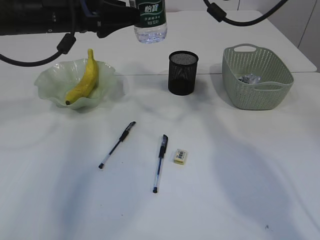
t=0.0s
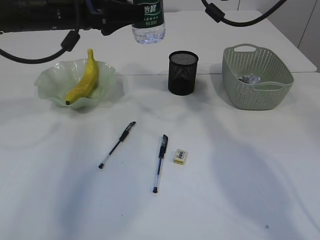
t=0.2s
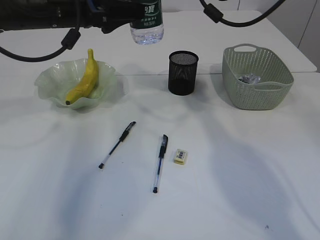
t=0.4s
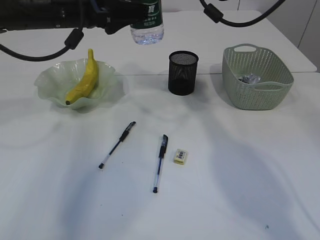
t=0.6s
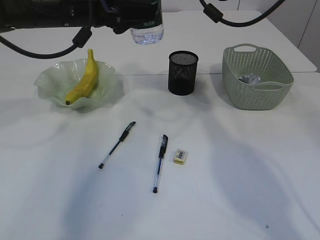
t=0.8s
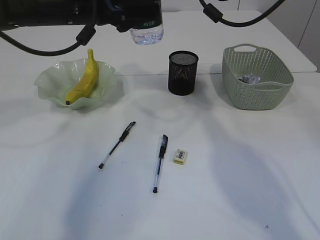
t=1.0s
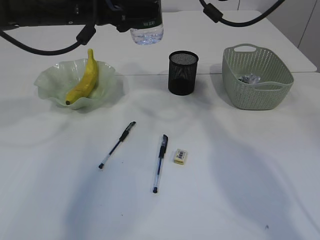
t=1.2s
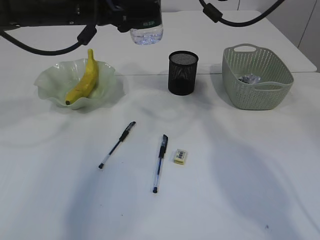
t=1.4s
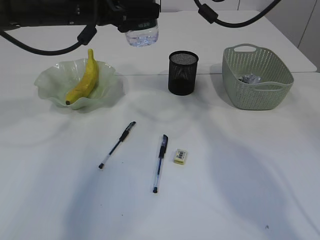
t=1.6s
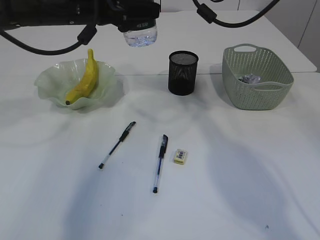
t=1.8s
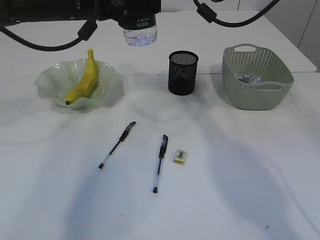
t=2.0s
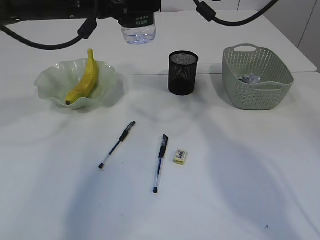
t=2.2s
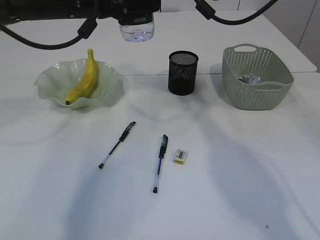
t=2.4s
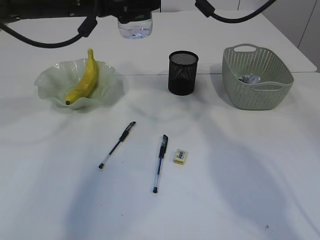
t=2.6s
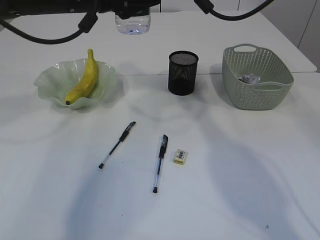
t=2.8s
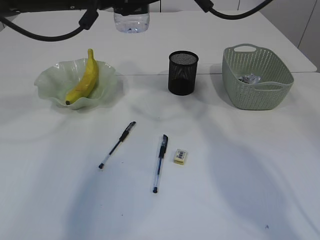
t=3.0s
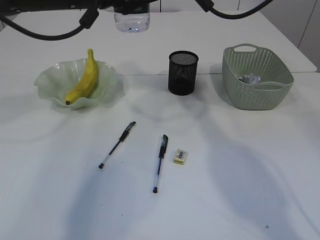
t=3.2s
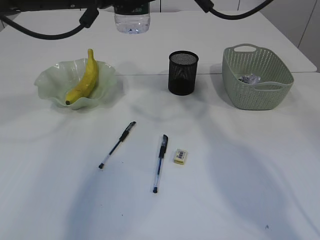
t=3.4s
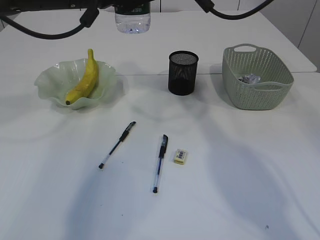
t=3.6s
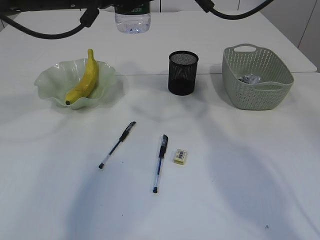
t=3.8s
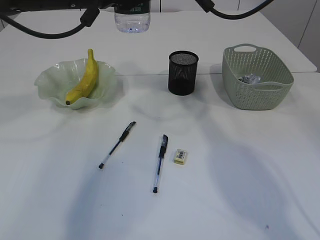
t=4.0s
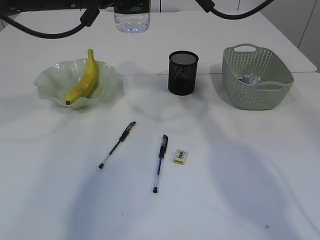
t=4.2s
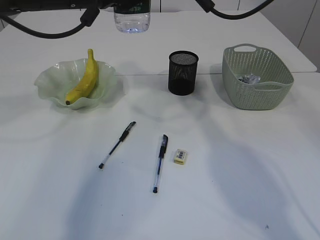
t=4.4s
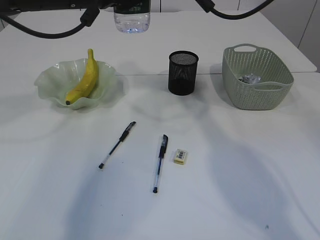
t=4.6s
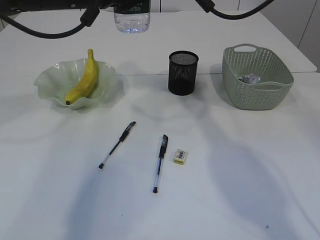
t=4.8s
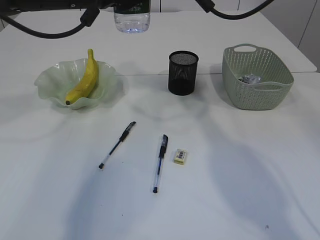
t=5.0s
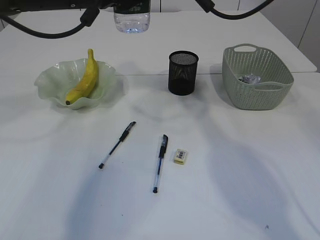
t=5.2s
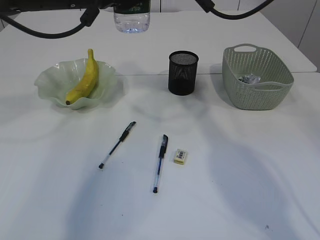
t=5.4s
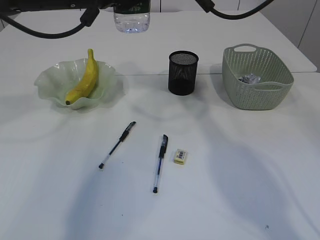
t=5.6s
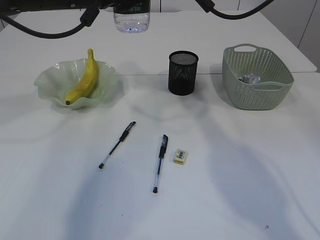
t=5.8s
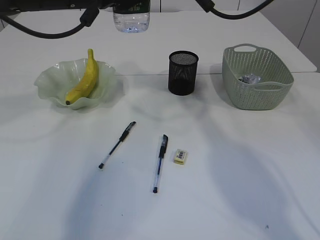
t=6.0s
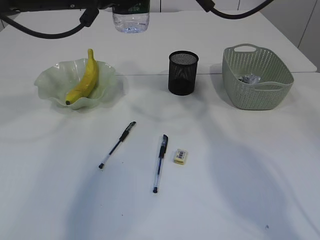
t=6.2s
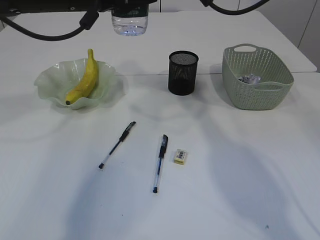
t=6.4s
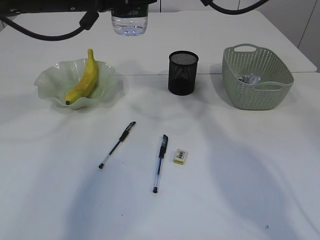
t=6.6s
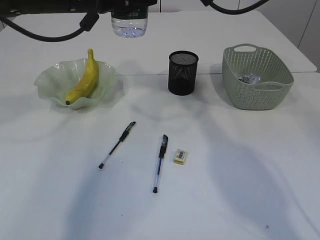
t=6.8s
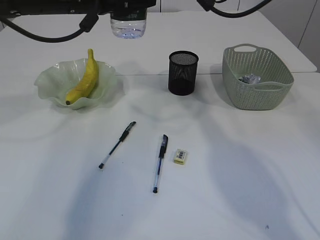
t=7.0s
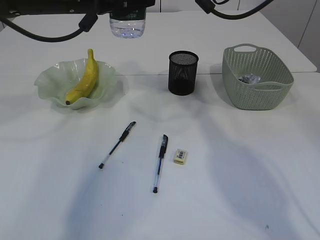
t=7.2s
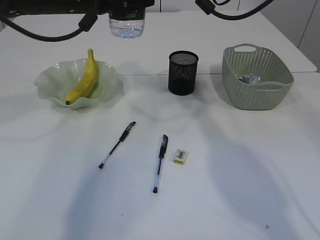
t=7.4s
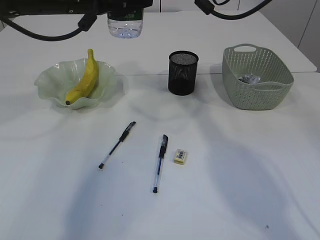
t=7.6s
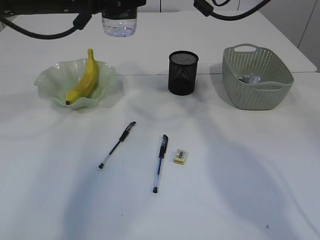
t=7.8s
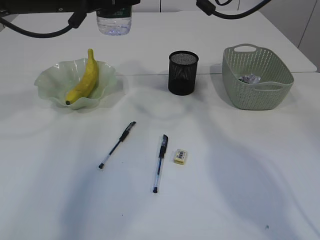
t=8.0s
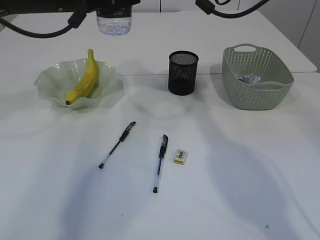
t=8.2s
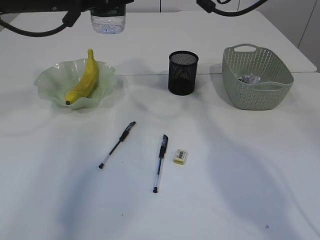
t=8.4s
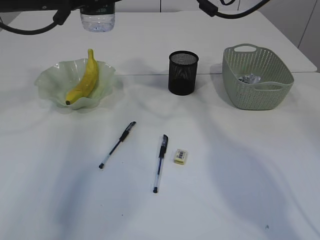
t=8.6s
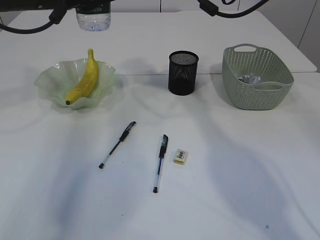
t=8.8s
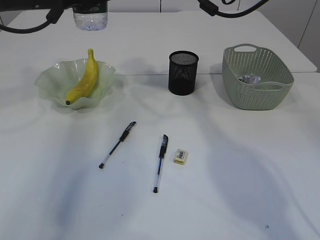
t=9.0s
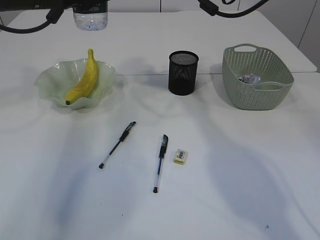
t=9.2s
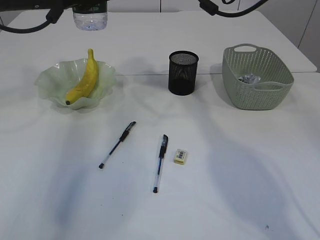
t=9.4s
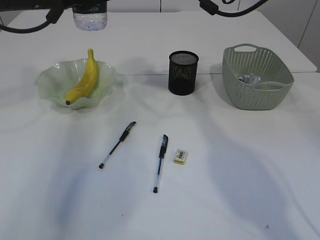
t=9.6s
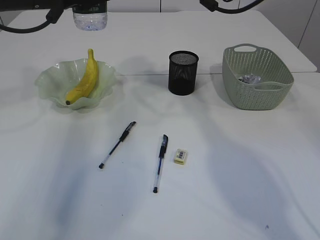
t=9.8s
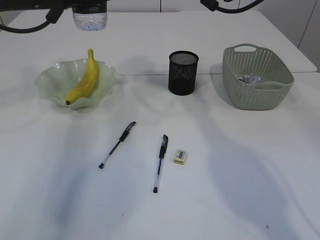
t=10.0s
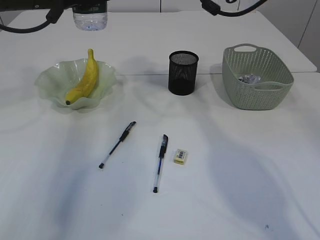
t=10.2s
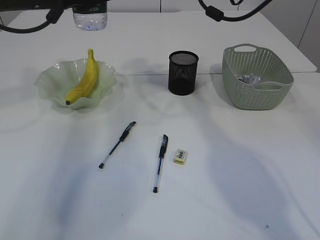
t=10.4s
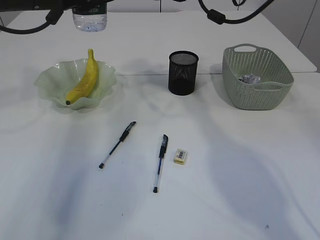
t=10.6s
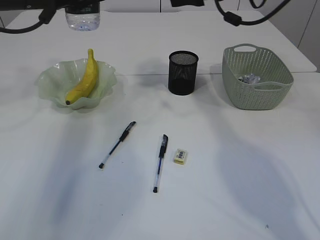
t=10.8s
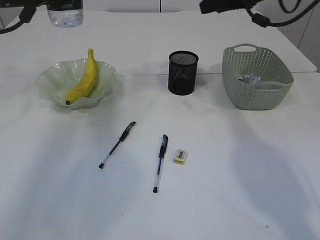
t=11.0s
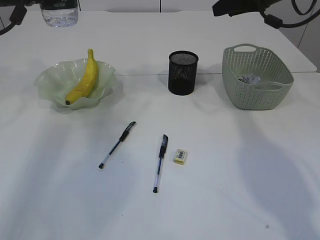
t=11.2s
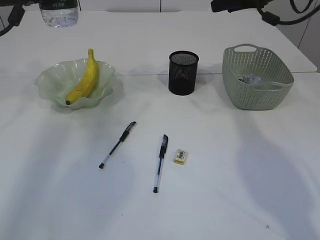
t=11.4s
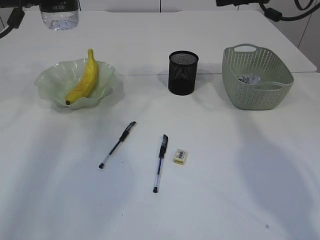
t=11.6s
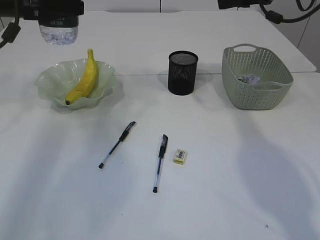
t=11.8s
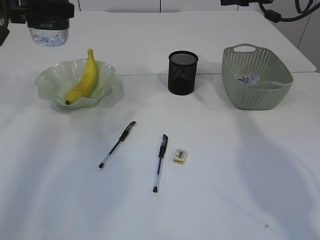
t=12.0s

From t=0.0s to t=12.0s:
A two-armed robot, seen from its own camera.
Step, from t=0.0s to t=8.6s: transfer the bottle to the left arm.
From t=0.0s to t=3.0s: The grippers move only a little.
From t=3.0s to t=4.4s: The left gripper closes its fingers.
From t=4.4s to t=6.0s: The two grippers keep their place.
From t=6.0s to t=7.6s: The grippers make only small movements.
From t=7.6s to t=9.0s: The left gripper shifts some 5 cm to the left.
From t=9.0s to t=10.4s: The right gripper closes and opens again.
From t=10.4s to t=12.0s: The right gripper travels to the right by about 15 cm, while the left gripper is displaced to the left by some 10 cm.

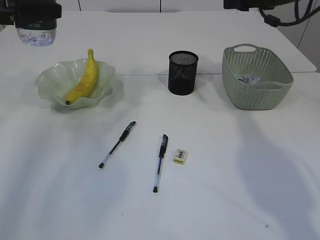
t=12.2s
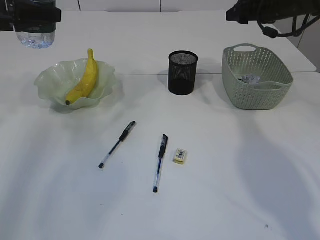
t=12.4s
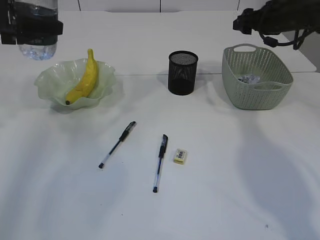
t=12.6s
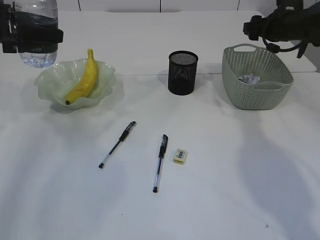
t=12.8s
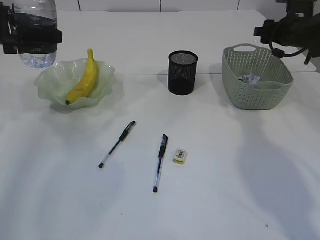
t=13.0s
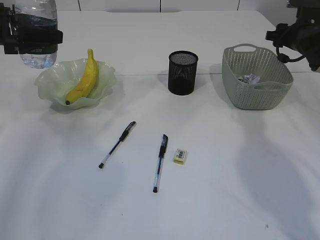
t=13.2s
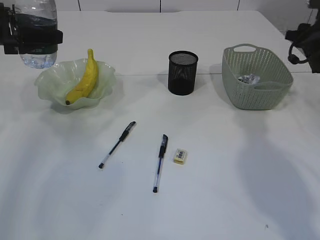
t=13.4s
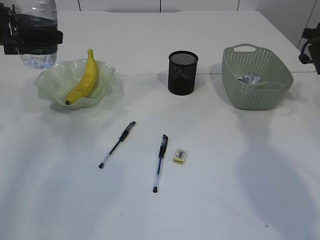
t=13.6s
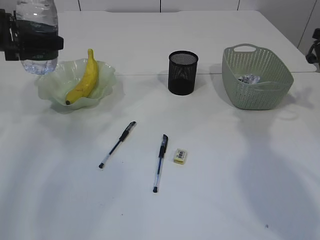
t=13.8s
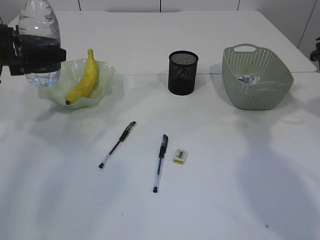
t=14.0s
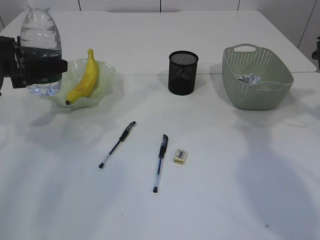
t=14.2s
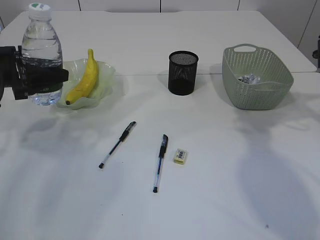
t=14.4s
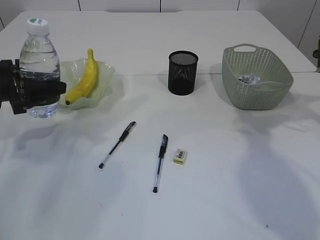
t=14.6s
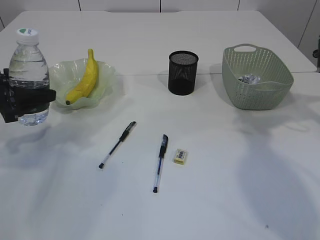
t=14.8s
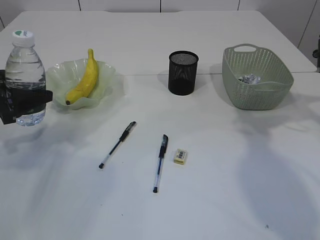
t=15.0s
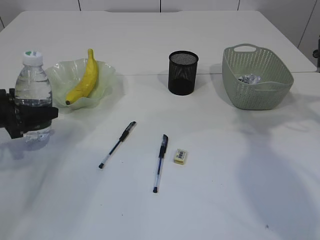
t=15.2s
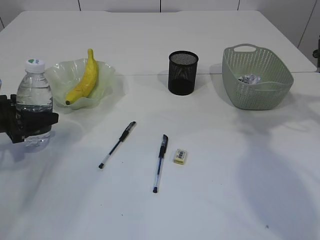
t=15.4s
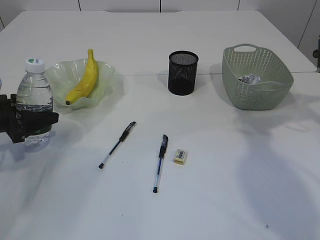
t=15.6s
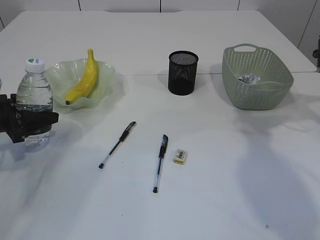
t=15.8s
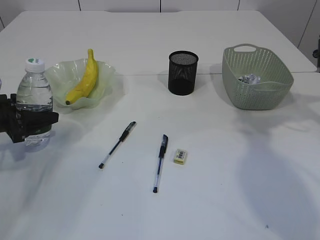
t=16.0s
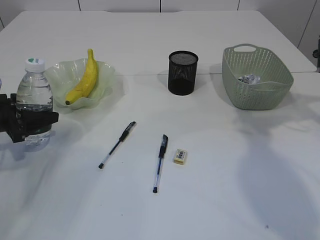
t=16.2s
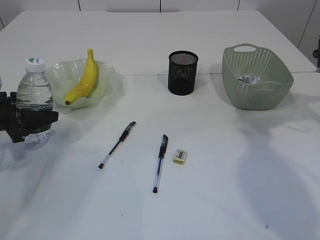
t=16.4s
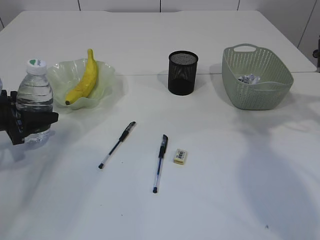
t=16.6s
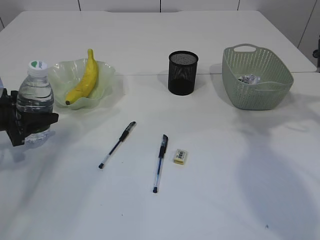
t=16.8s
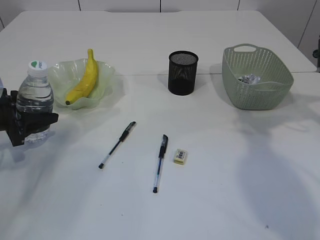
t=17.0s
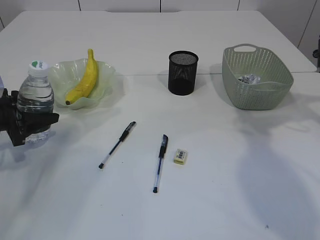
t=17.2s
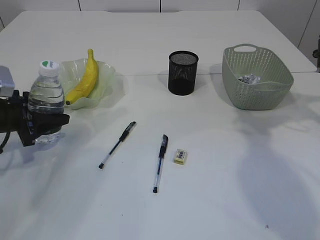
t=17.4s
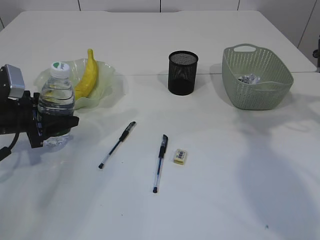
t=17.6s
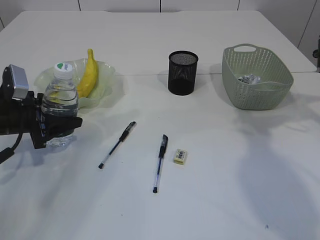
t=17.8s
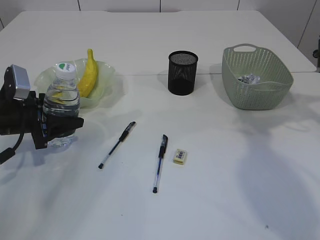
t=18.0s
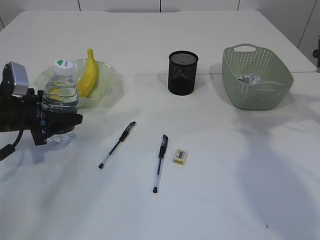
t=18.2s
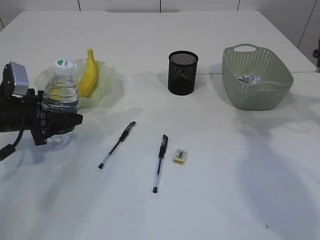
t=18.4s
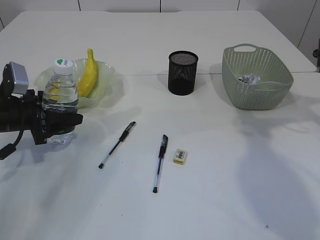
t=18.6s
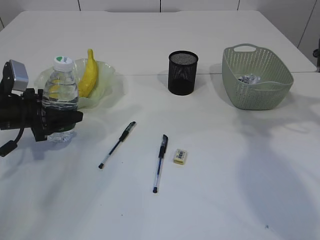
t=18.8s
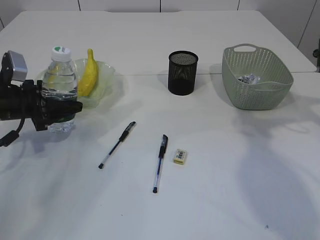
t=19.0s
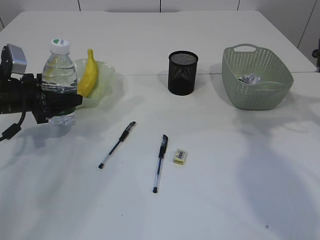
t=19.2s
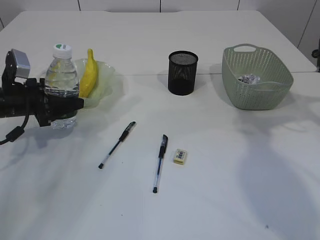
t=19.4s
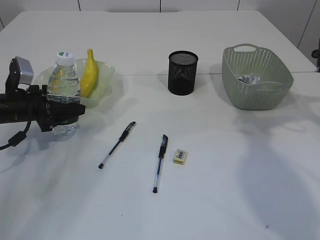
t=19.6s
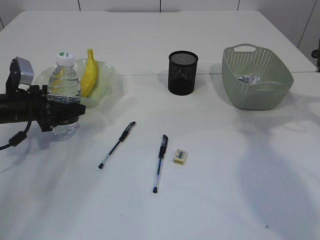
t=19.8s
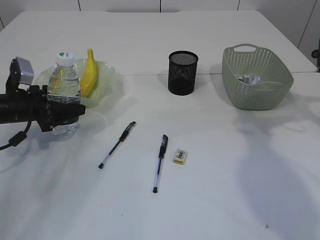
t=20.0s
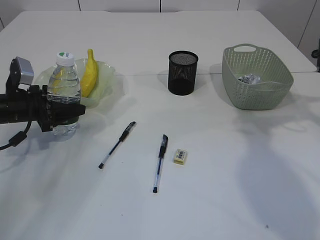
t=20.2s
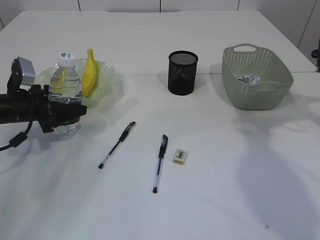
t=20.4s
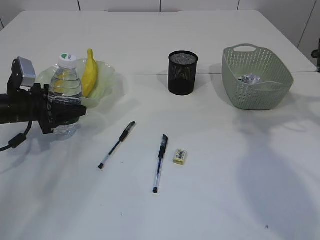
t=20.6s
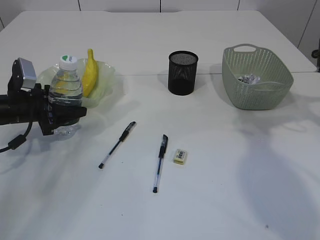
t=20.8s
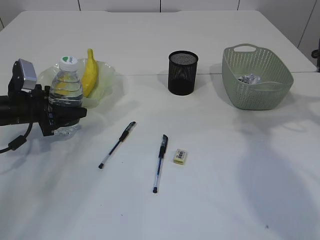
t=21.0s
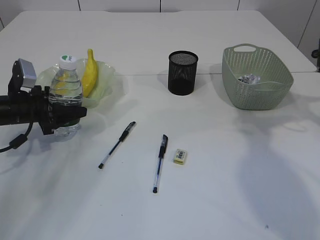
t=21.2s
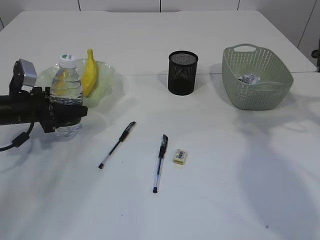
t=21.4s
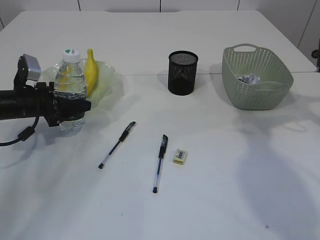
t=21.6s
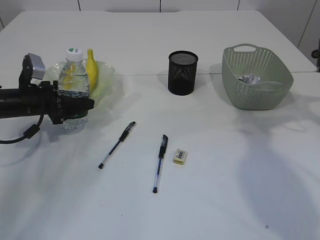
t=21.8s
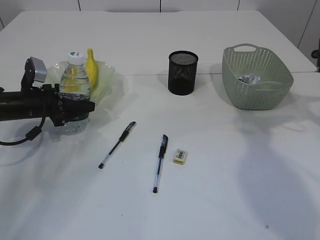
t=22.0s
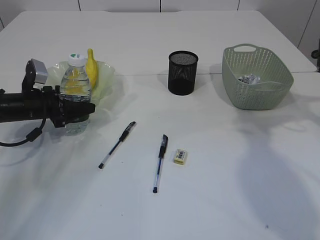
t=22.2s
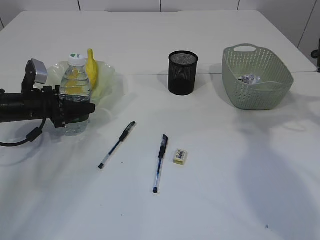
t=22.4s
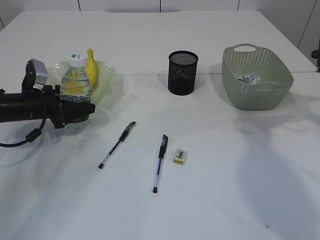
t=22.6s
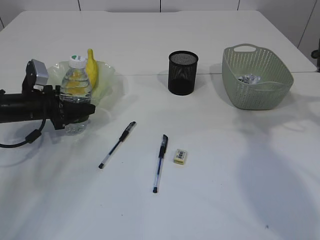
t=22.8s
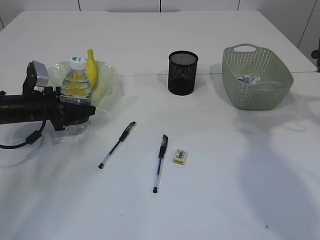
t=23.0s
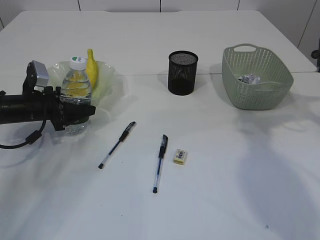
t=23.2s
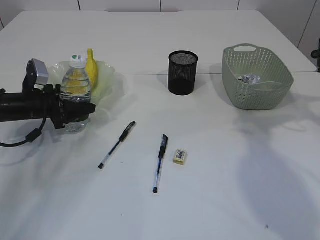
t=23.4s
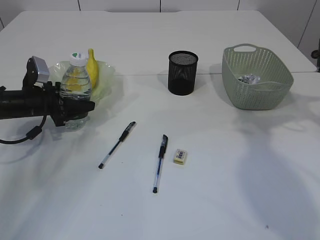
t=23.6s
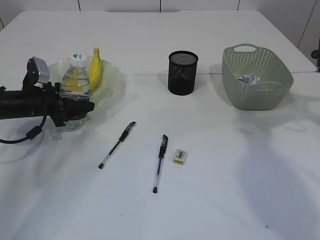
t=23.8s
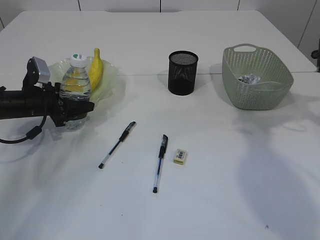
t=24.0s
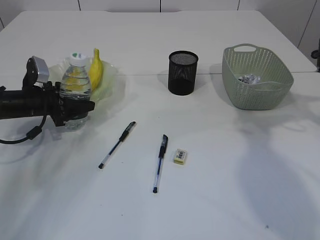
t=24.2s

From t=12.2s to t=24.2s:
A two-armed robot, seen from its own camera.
From t=12.2s to t=13.8s: The left gripper travels downward by approximately 5 cm; the right gripper moves to the right, downward and backward, about 15 cm.
From t=13.8s to t=15.2s: The left gripper shifts approximately 15 cm downward.
From t=15.2s to t=19.8s: The grippers stay close to where they were, moving slightly.
From t=19.8s to t=22.6s: The grippers make only small movements.
From t=22.6s to t=24.2s: The two grippers keep their place.
